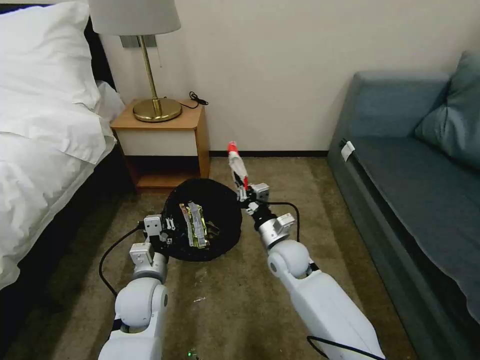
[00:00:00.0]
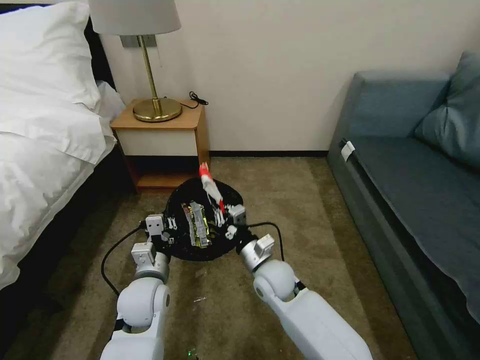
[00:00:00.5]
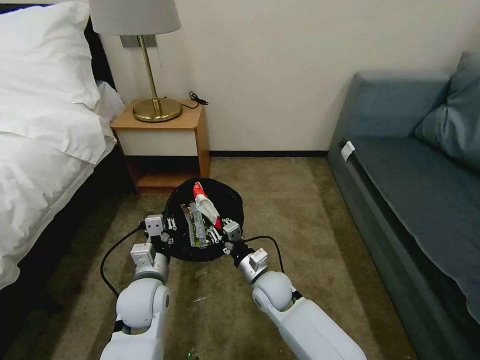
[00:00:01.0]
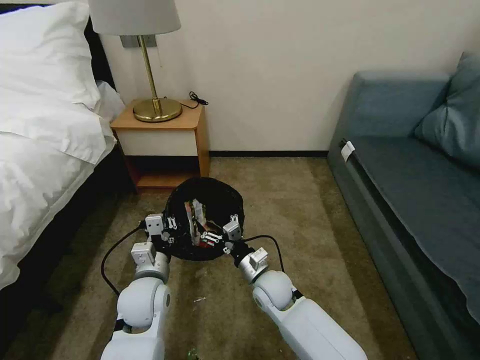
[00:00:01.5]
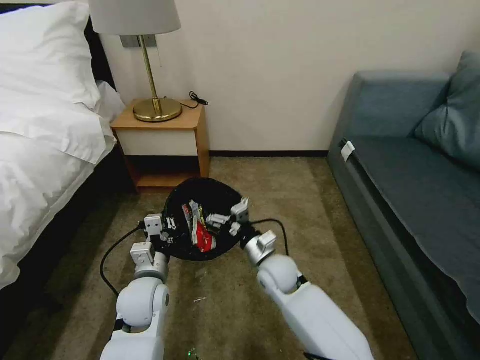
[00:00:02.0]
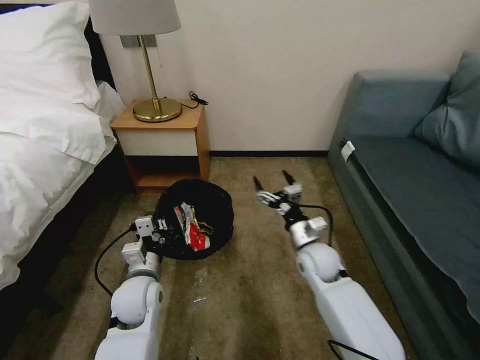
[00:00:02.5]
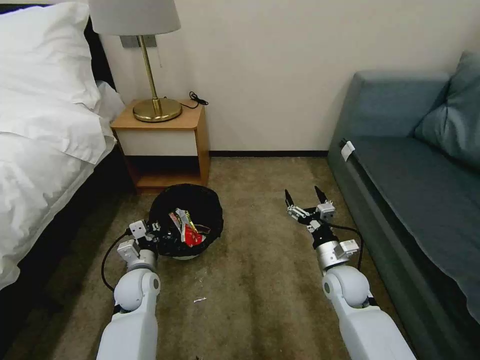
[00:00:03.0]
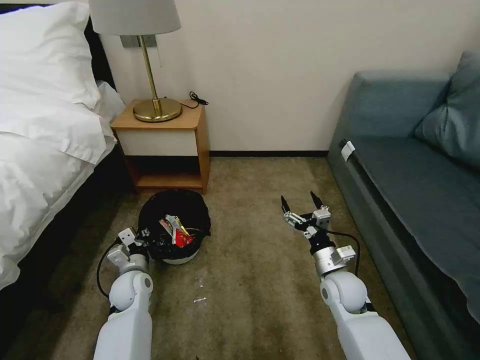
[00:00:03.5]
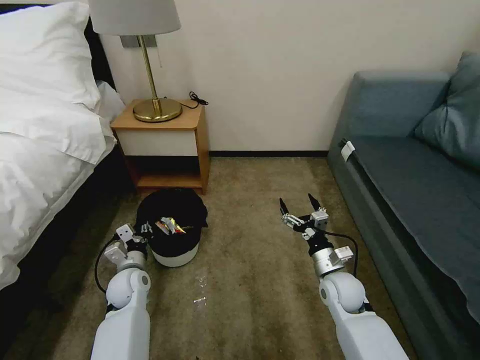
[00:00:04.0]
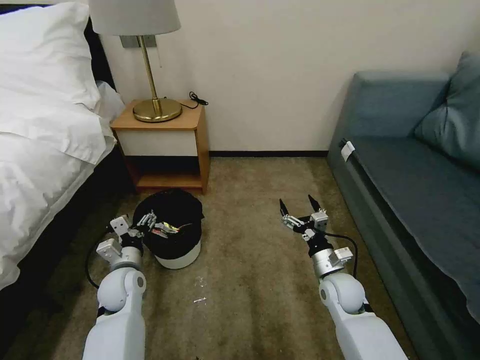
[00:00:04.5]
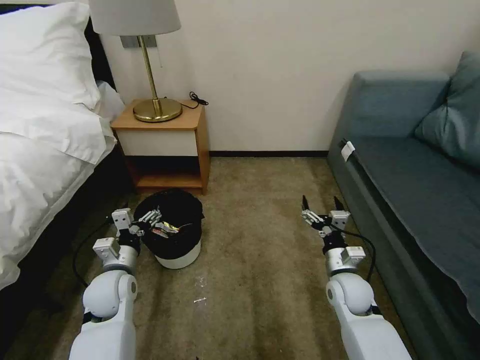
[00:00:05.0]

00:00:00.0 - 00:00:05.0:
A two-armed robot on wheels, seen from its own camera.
Task of the whole recording: Pick up the trash bin, then pick up the garbage on the floor and place it into the trash bin.
00:00:00.0 - 00:00:02.5: The right gripper heads to the right, covering about 5 cm, and opens.
00:00:02.5 - 00:00:05.0: The right gripper is displaced to the right and backward by about 10 cm; the left gripper travels to the left by some 5 cm, goes downward and returns, some 10 cm each way, and opens up.

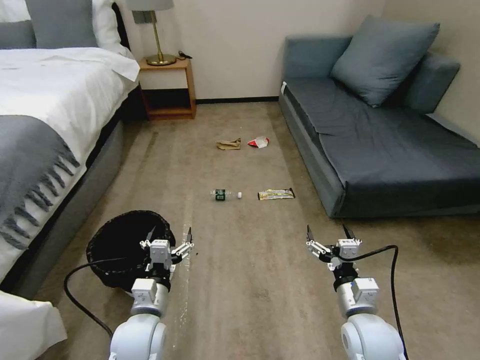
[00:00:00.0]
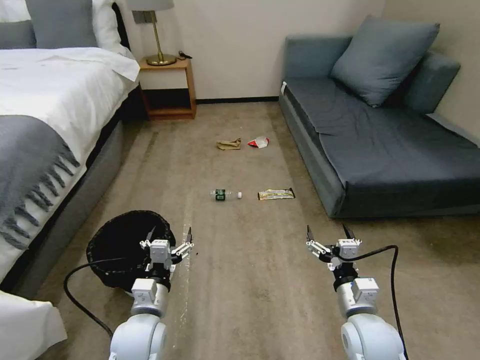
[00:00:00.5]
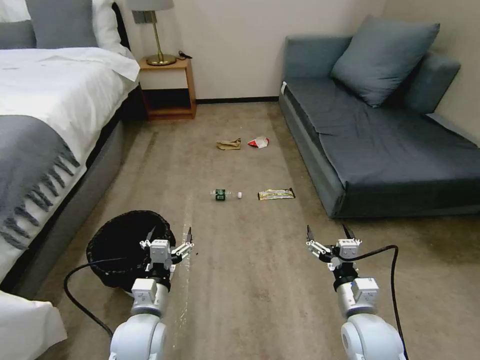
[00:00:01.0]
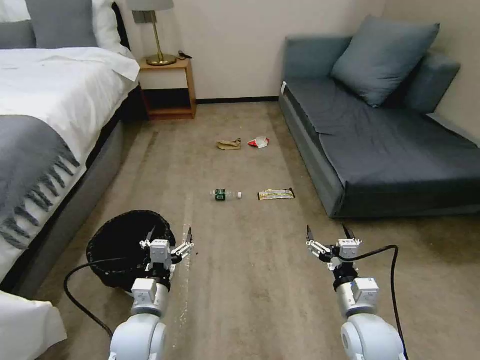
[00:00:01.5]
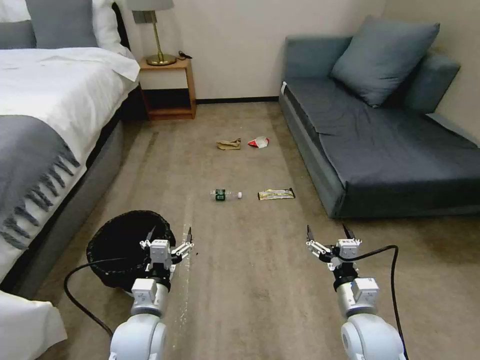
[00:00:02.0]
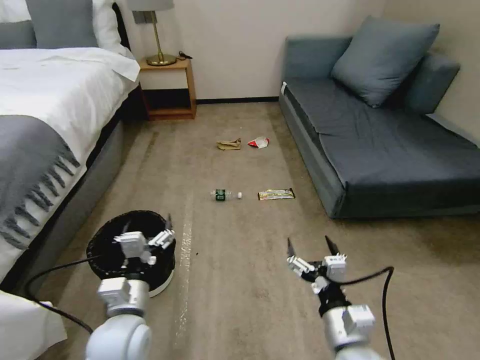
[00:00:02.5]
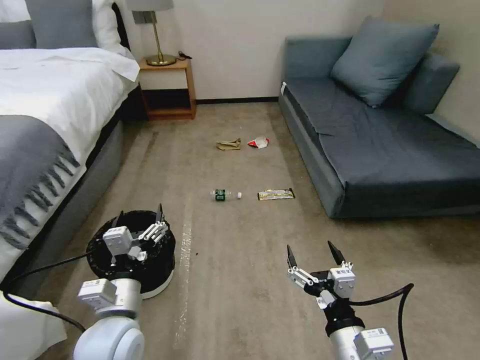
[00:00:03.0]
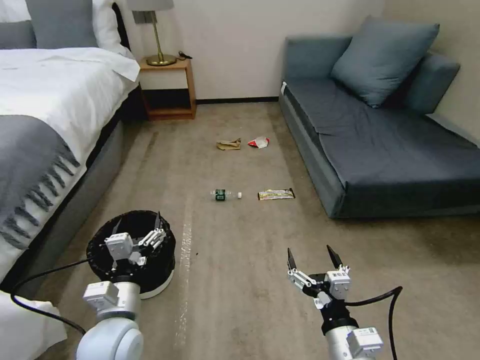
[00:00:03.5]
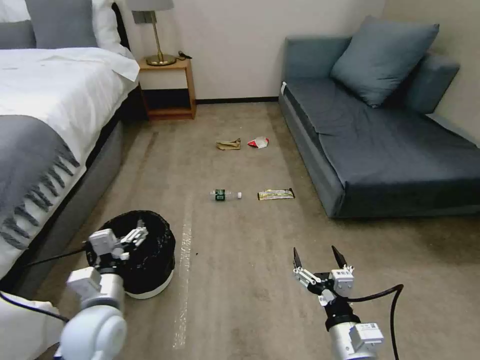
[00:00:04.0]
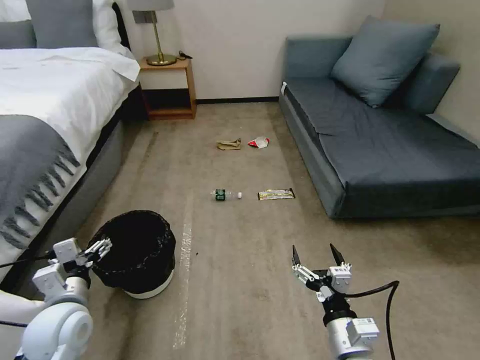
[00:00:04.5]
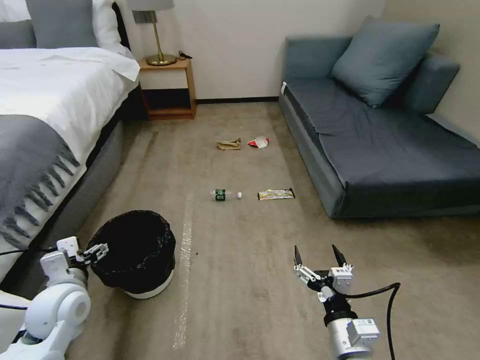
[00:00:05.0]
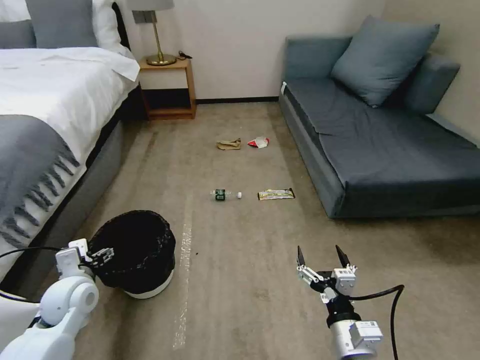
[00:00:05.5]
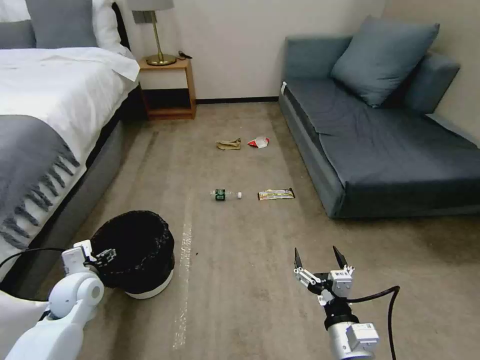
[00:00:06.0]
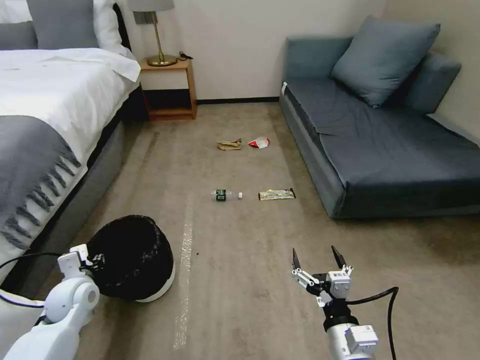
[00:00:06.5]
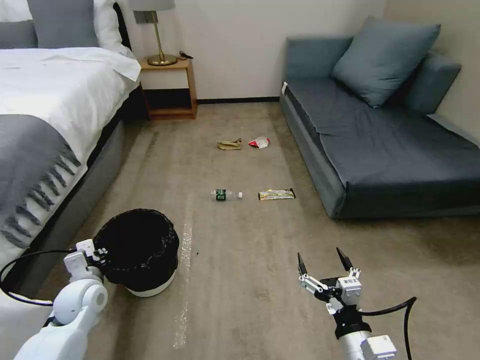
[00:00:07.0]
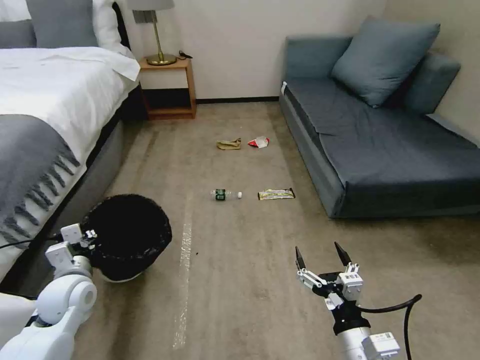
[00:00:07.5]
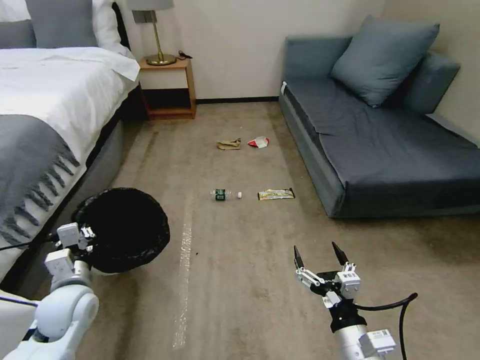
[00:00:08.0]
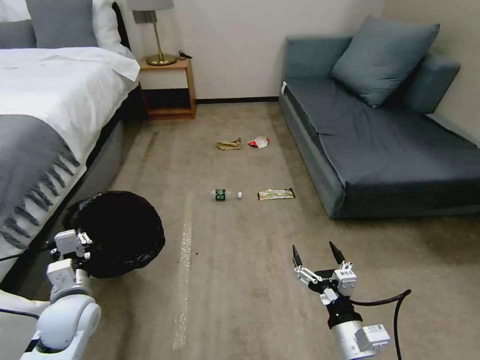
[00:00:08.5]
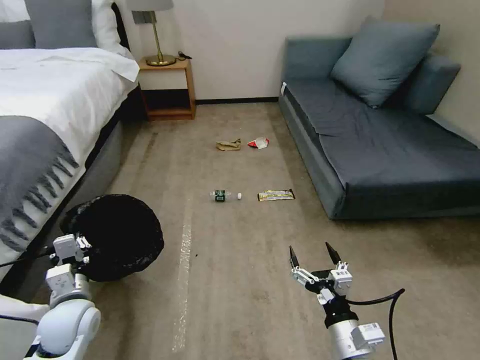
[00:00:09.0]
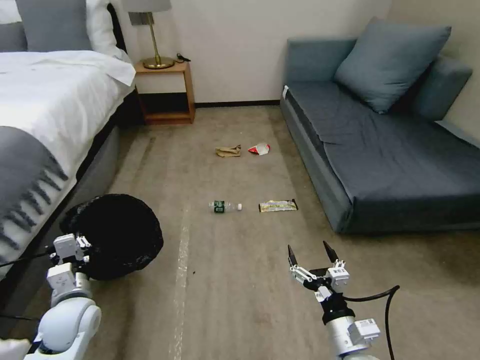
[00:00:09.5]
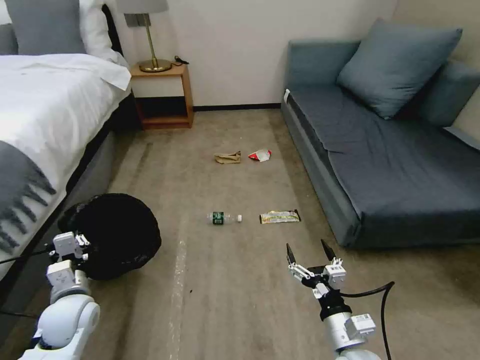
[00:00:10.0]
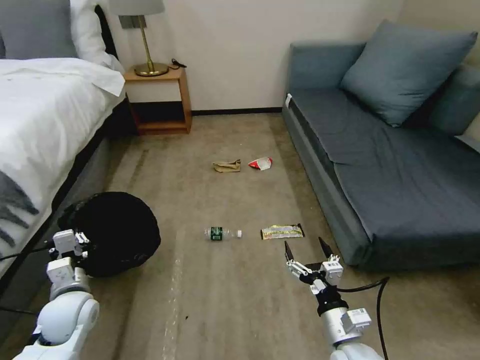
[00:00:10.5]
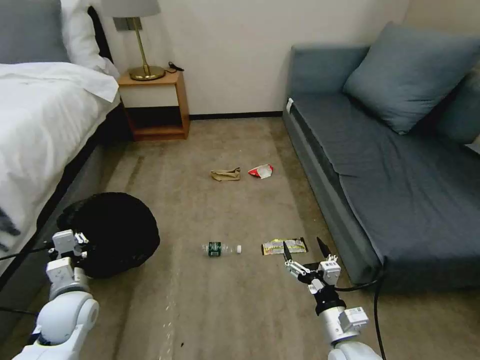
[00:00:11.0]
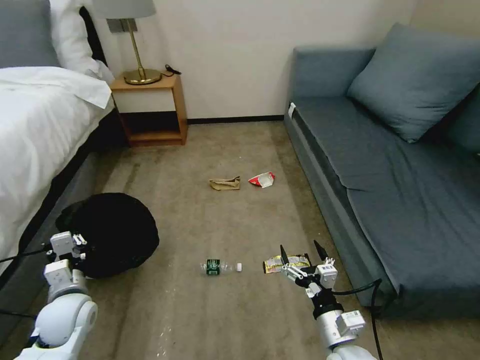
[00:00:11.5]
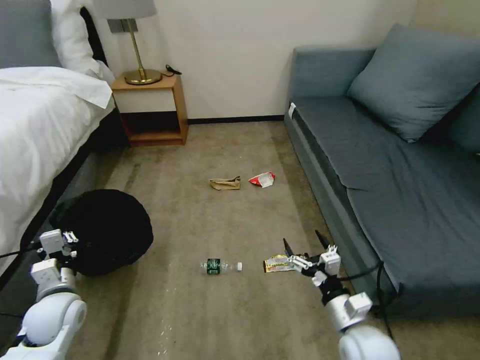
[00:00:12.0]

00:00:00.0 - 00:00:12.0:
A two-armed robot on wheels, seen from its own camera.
Task of the whole recording: Pick up the trash bin, then pick up the garbage on the floor and place it into the trash bin.
00:00:02.0 - 00:00:04.0: The right gripper heads backward, covering about 10 cm. The left gripper is displaced to the left and upward by some 10 cm.
00:00:04.0 - 00:00:06.0: The left gripper shifts approximately 15 cm to the left and forward.
00:00:06.0 - 00:00:08.0: The left gripper ends up about 5 cm from where it was, and closes its fingers.

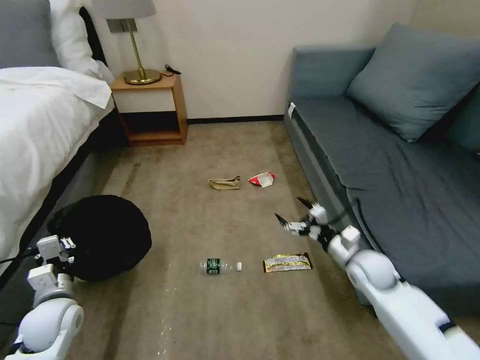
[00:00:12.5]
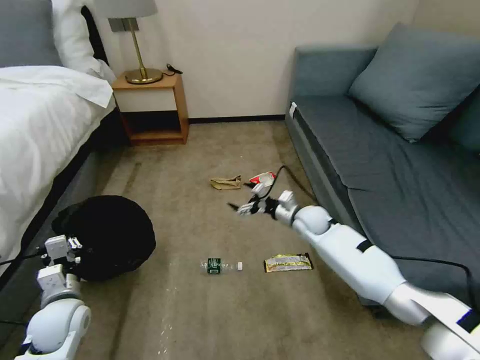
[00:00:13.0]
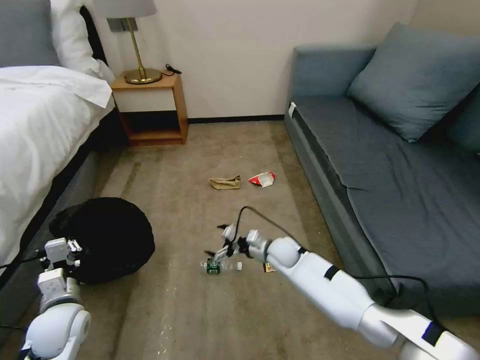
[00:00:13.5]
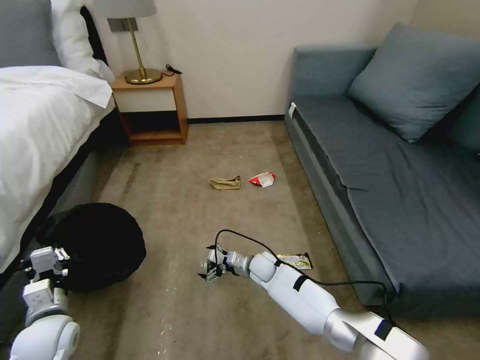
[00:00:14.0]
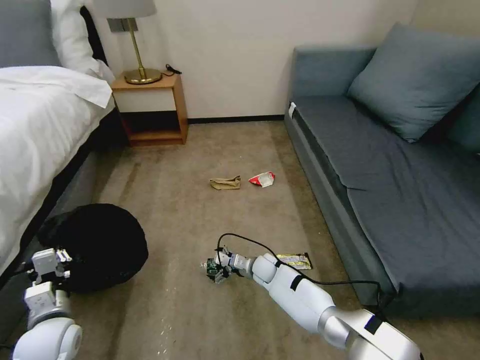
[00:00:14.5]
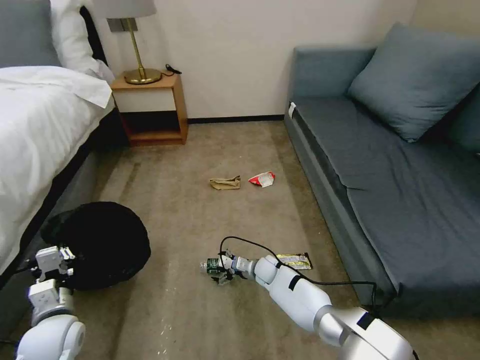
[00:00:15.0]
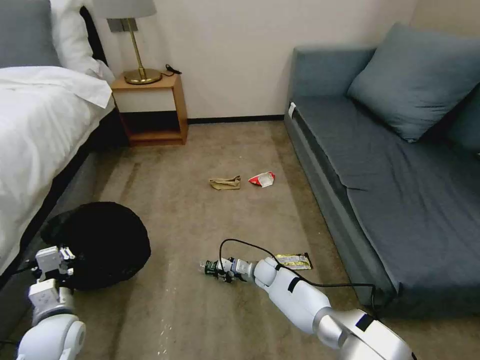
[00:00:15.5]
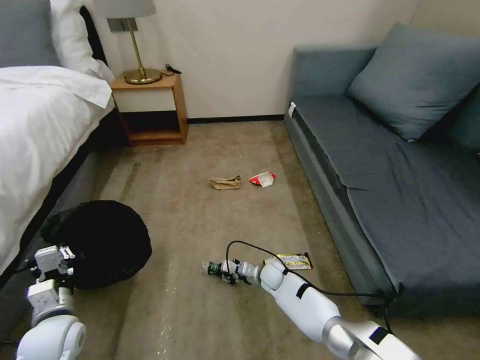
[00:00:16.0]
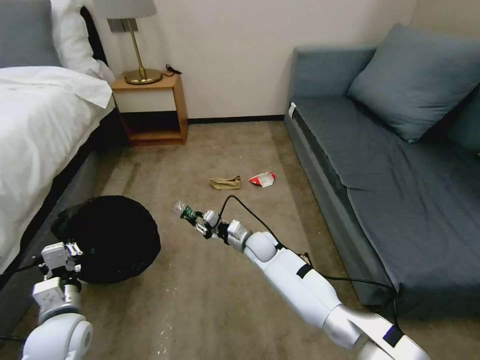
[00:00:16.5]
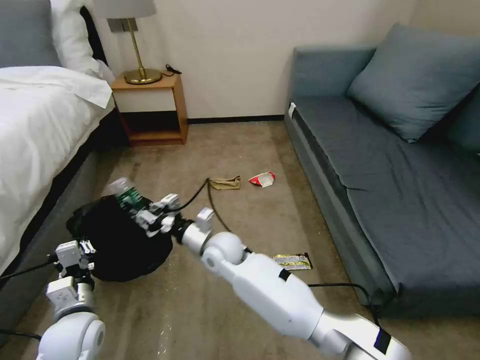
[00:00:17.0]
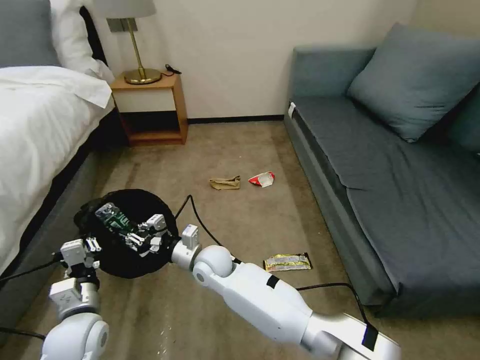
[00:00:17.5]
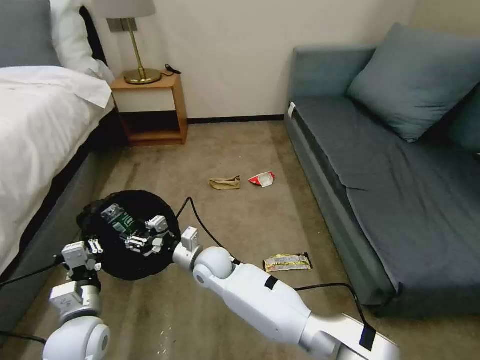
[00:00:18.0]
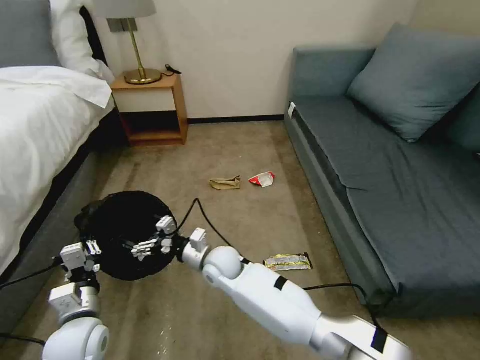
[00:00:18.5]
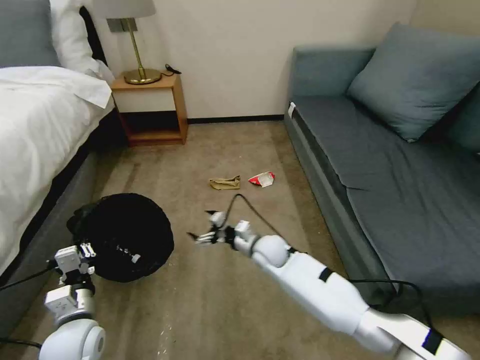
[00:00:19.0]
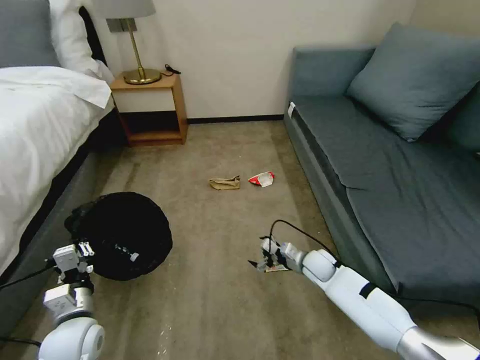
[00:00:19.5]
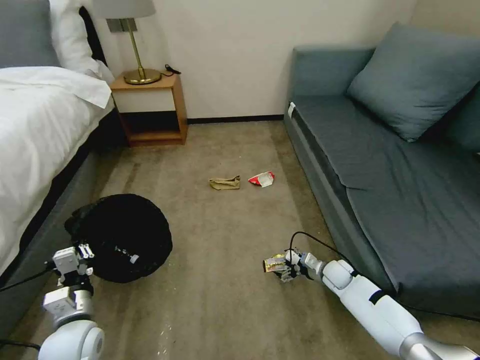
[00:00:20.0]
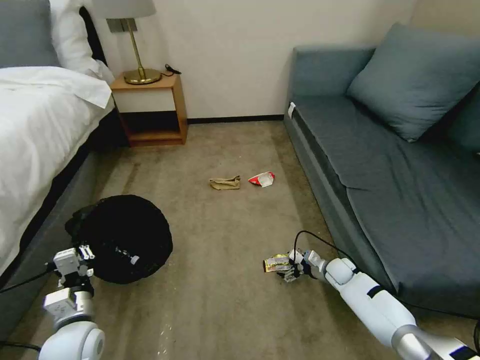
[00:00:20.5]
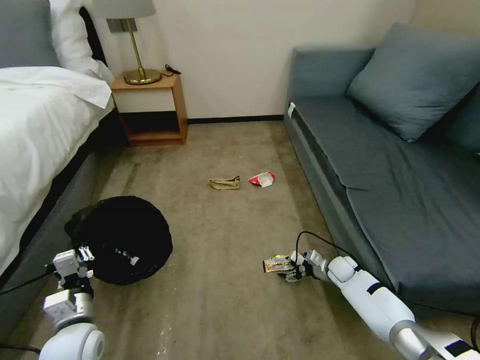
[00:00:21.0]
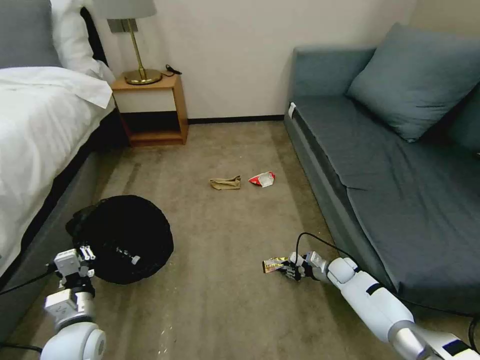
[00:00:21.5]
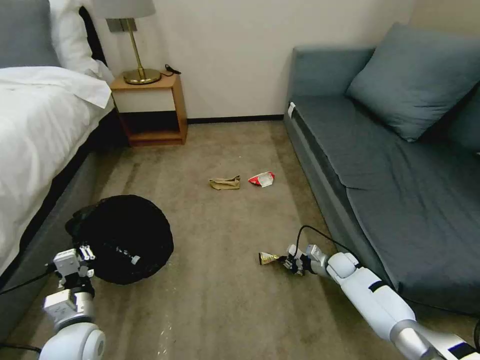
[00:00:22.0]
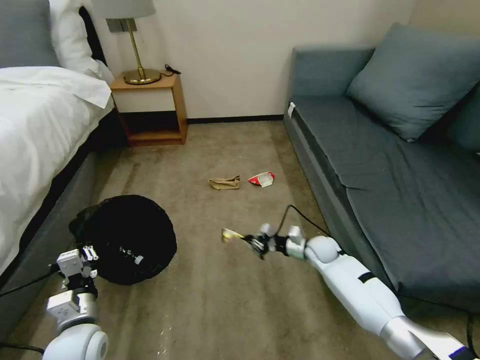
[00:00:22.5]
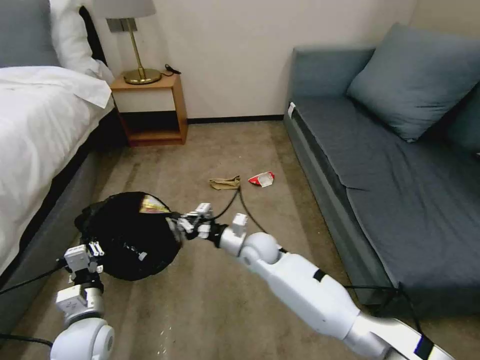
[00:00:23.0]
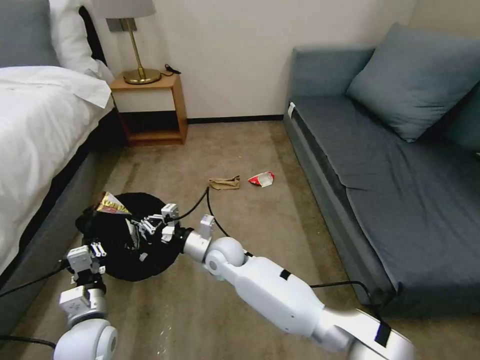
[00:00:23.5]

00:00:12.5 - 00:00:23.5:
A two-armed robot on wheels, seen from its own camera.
Task of the whole recording: Pick up the trash bin, then pick up the garbage on the floor and place it into the trash bin.
00:00:12.5 - 00:00:14.5: The right gripper moves to the left and downward, some 30 cm.
00:00:14.5 - 00:00:16.0: The right gripper closes up.
00:00:16.0 - 00:00:18.0: The right gripper goes approximately 25 cm to the left and upward. Meanwhile the left gripper shifts roughly 5 cm to the right.
00:00:18.0 - 00:00:20.0: The right gripper moves to the right, about 40 cm, and opens up.
00:00:20.0 - 00:00:21.5: The right gripper closes.
00:00:21.5 - 00:00:23.5: The right gripper travels to the left and upward by about 40 cm.
